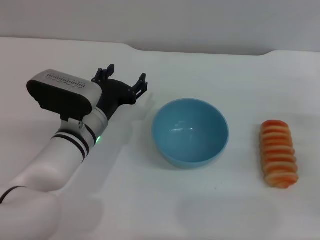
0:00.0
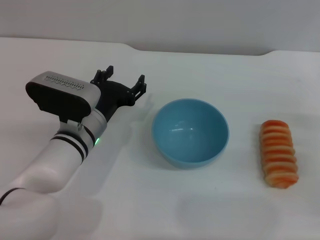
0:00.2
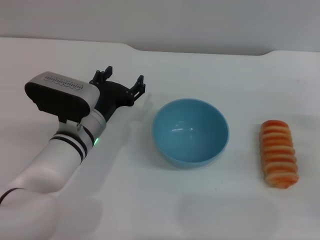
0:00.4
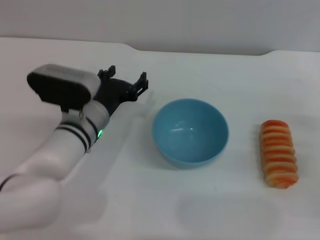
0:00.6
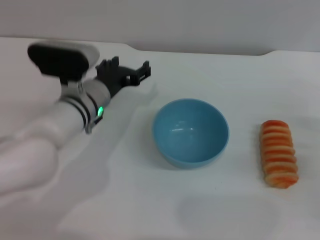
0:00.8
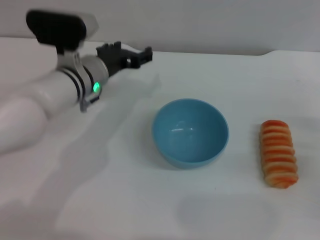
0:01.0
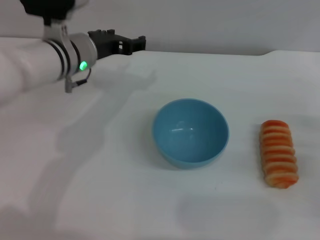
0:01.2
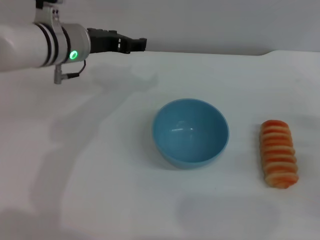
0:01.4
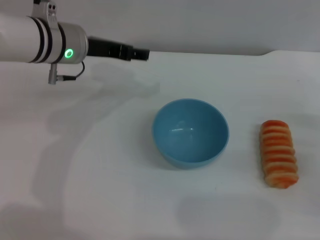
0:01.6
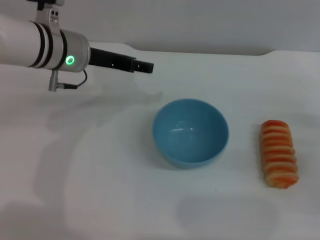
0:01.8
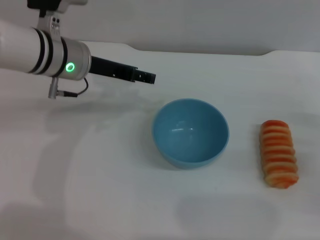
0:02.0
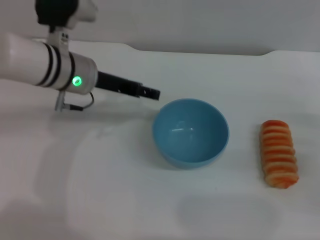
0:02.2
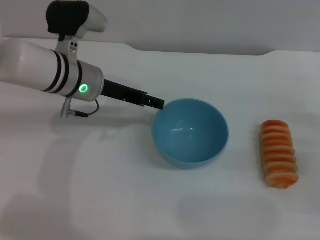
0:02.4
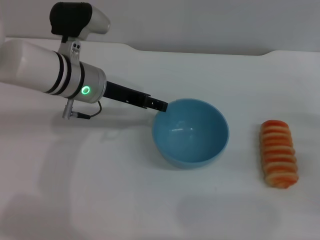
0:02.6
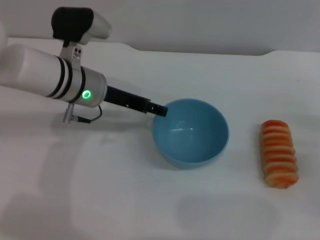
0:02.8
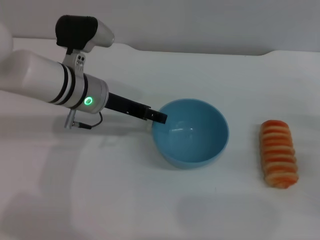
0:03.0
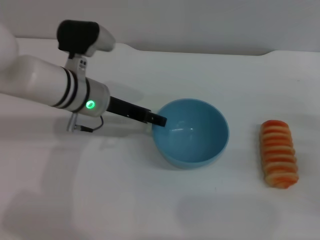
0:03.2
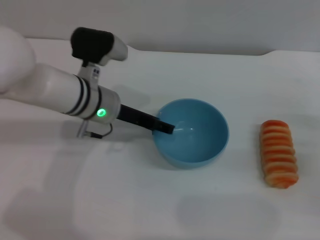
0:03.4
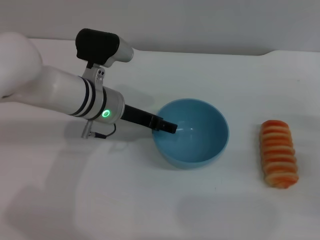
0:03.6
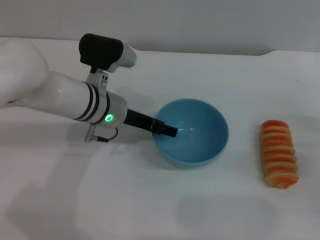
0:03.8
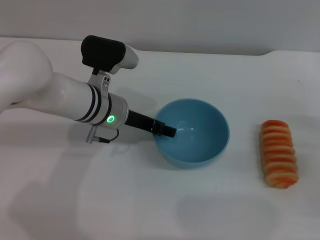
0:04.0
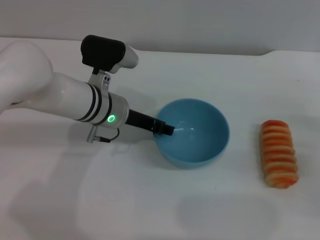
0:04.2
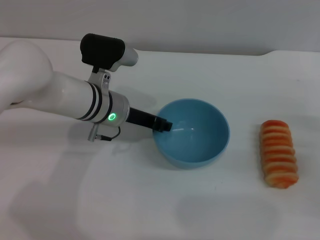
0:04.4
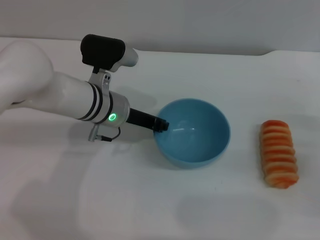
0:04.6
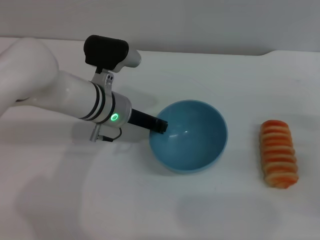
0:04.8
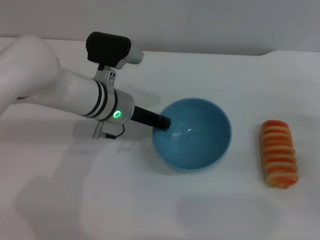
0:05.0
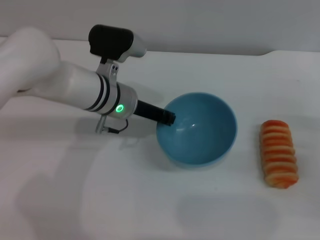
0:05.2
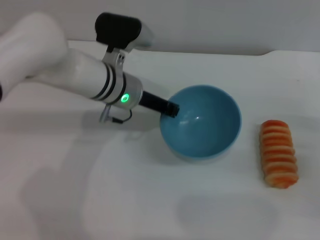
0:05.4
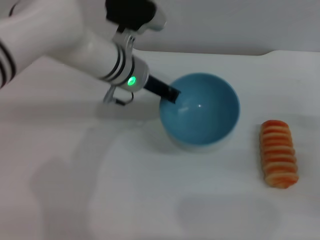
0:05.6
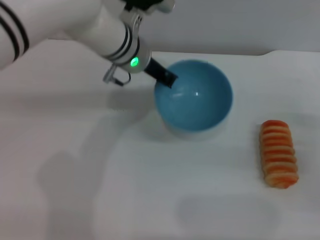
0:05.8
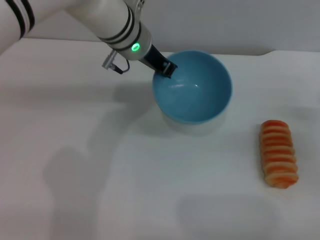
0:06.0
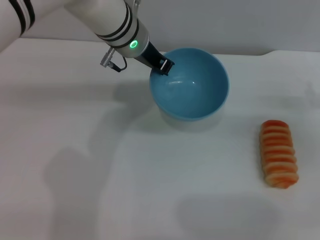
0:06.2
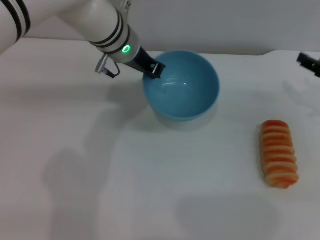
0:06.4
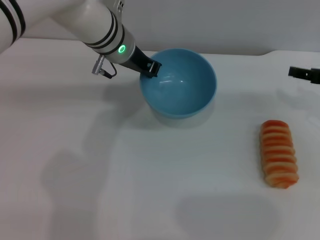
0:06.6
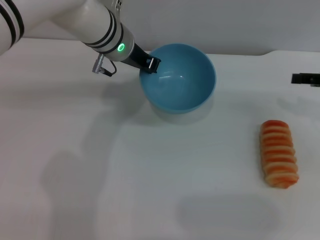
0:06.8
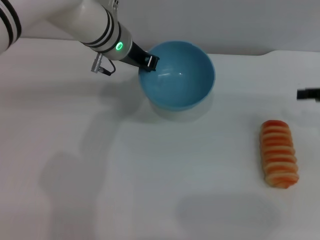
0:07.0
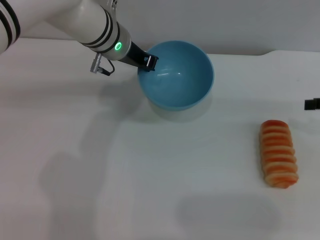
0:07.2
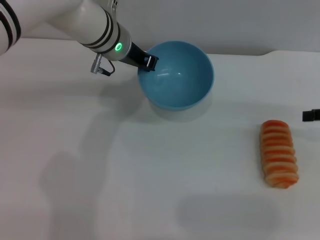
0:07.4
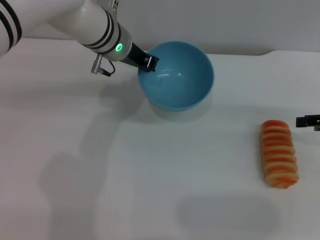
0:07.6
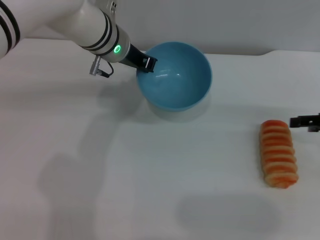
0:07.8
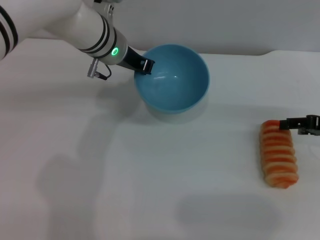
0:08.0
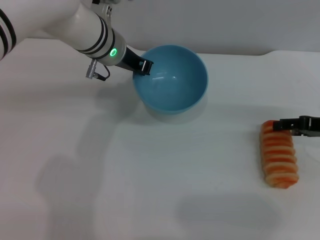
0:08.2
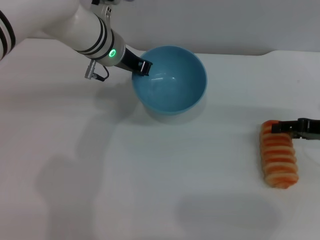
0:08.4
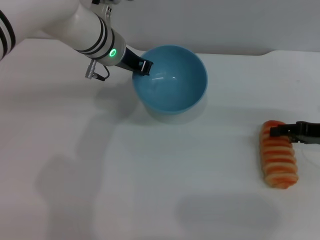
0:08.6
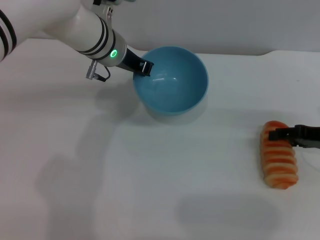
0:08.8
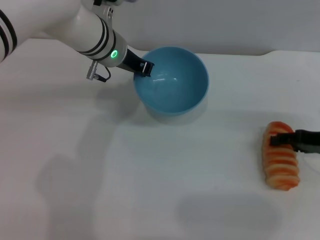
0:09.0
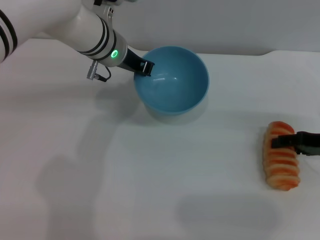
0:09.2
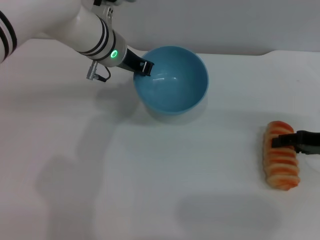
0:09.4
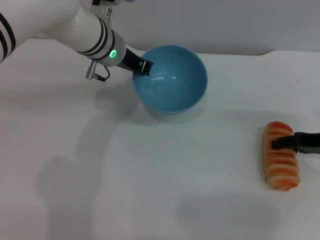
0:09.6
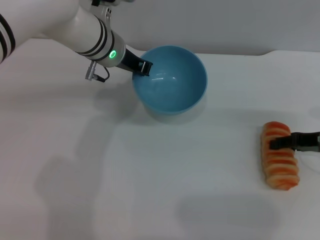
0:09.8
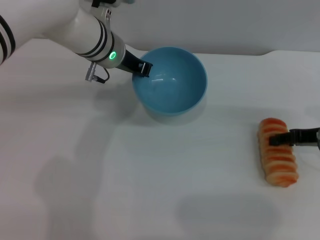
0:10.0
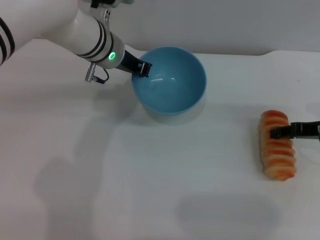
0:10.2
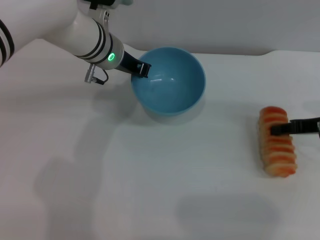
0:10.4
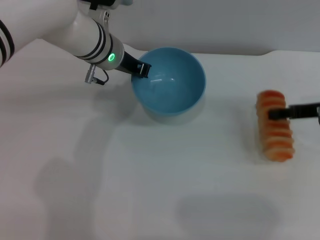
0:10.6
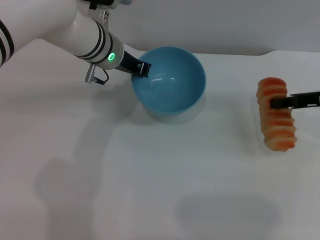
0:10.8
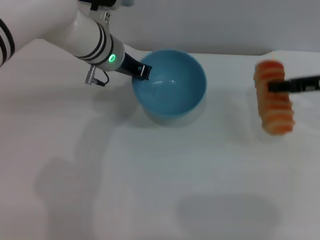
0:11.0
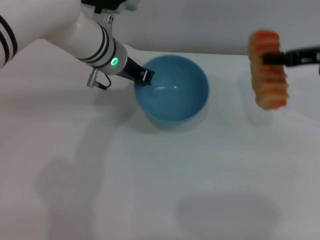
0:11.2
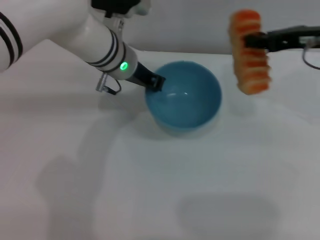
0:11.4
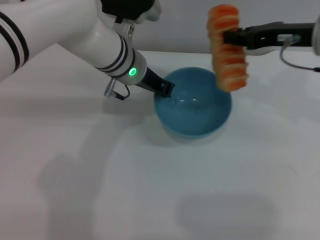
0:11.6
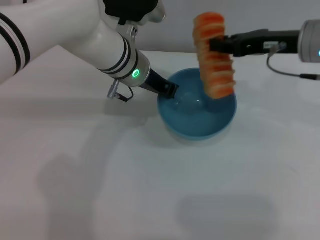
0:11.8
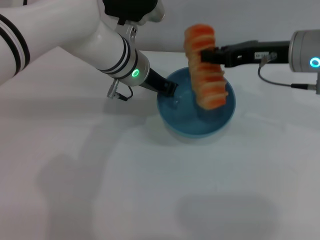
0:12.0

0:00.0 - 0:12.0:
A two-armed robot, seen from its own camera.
Task of the whole recording: put the bread into the blue bowl and pour it out repeatedly.
Step, 0:00.0 - 0:06.2: Pick up the bowl with the left gripper.
Step, 0:06.4 - 0:10.8: Pick up the bread with the right gripper.
0:00.0 - 0:01.6: The left gripper moves upward and forward, roughly 15 cm.
0:01.6 - 0:03.0: The left gripper moves downward, some 5 cm.
0:03.0 - 0:04.4: The left gripper closes up.
0:04.4 - 0:06.0: The left gripper goes about 10 cm upward and forward, and closes up.
0:06.0 - 0:07.6: The right gripper goes some 10 cm upward.
0:07.6 - 0:09.0: The right gripper is displaced downward by roughly 5 cm.
0:09.0 - 0:10.4: The grippers stay close to where they were, moving slightly.
0:10.4 - 0:12.0: The right gripper goes roughly 15 cm to the left and upward, and closes up.

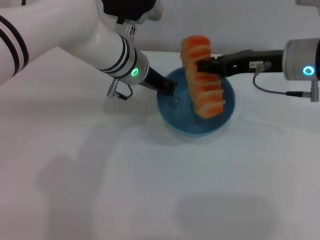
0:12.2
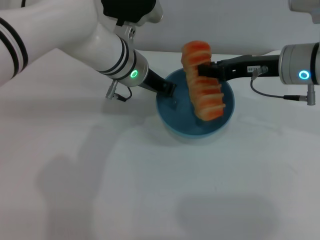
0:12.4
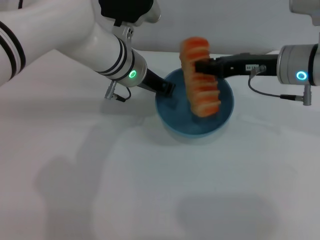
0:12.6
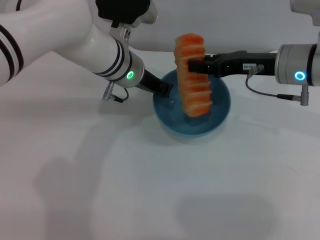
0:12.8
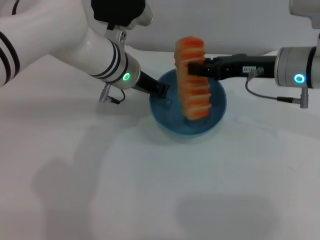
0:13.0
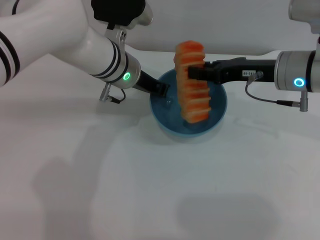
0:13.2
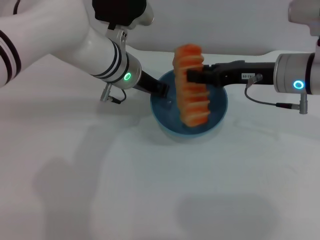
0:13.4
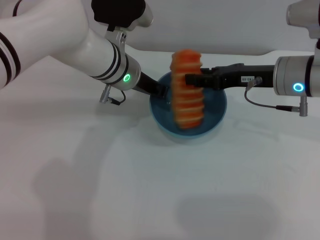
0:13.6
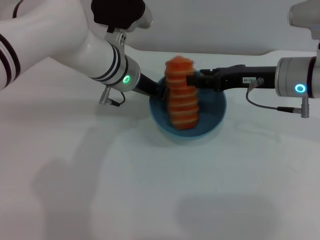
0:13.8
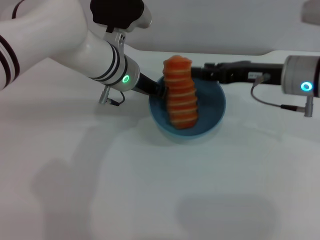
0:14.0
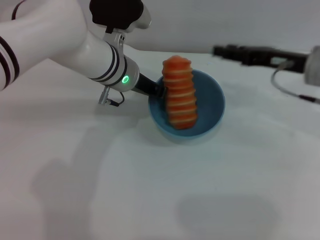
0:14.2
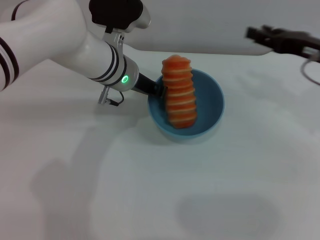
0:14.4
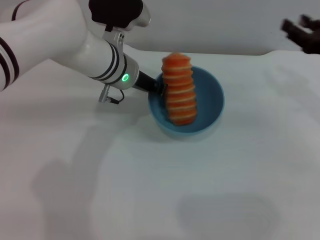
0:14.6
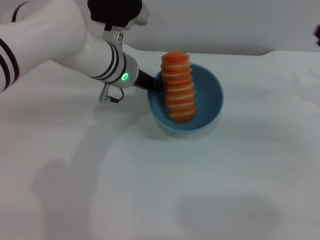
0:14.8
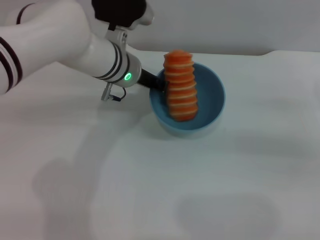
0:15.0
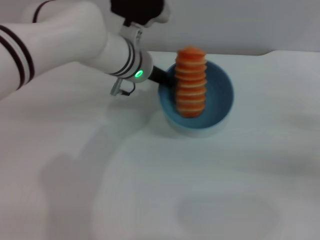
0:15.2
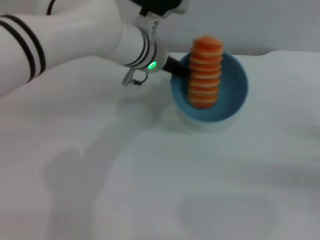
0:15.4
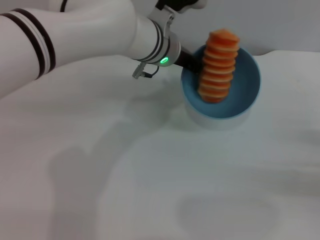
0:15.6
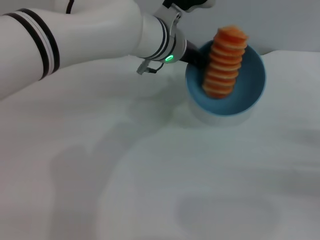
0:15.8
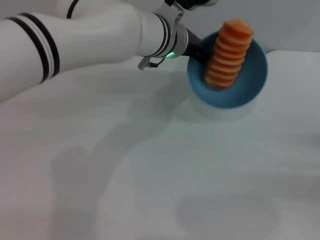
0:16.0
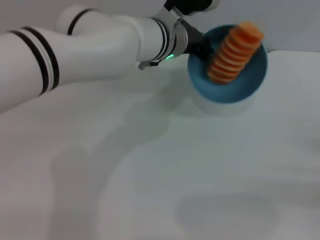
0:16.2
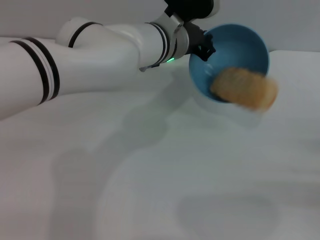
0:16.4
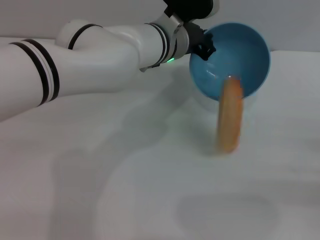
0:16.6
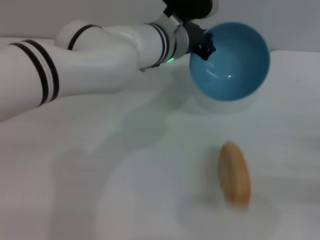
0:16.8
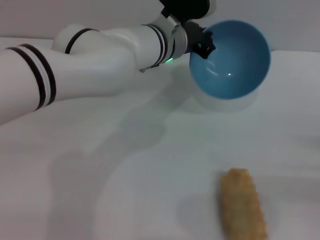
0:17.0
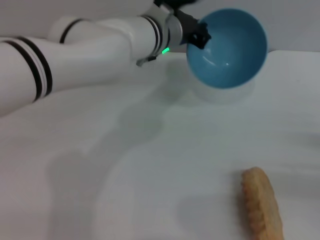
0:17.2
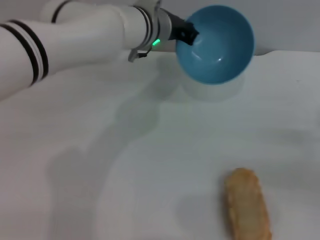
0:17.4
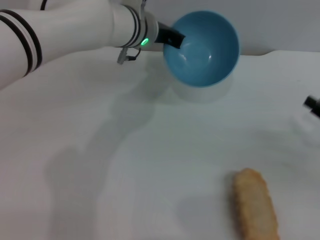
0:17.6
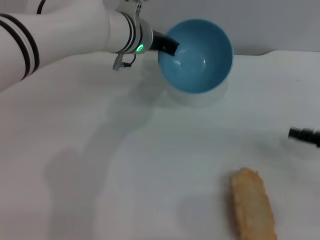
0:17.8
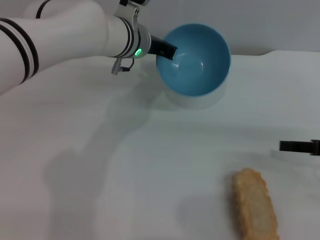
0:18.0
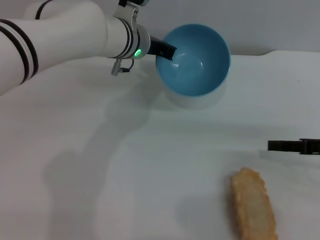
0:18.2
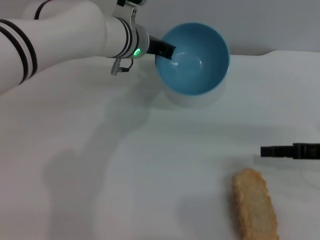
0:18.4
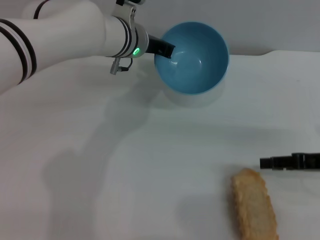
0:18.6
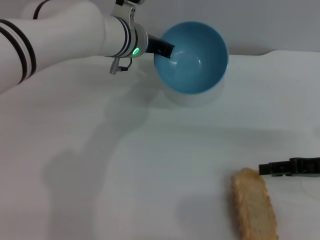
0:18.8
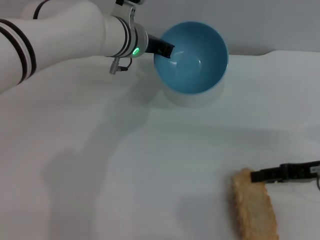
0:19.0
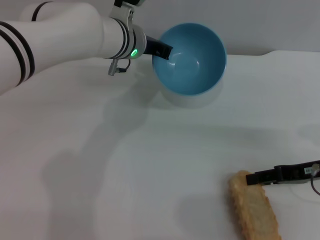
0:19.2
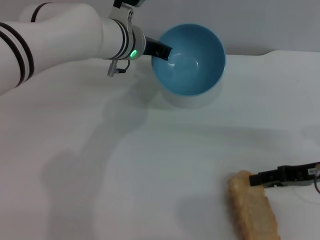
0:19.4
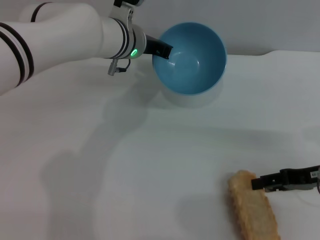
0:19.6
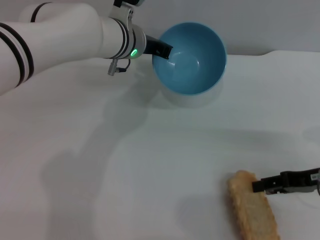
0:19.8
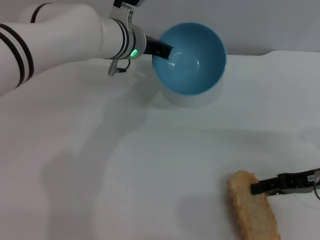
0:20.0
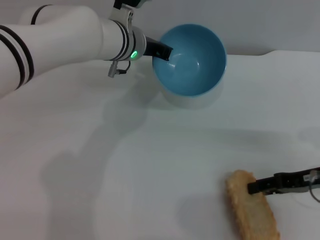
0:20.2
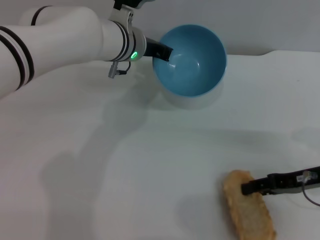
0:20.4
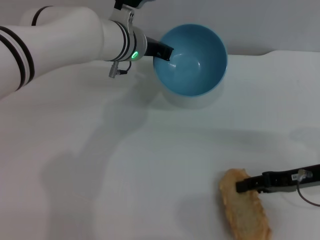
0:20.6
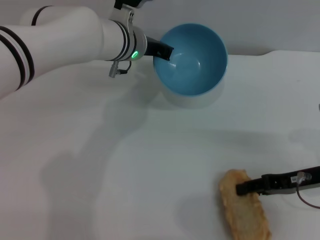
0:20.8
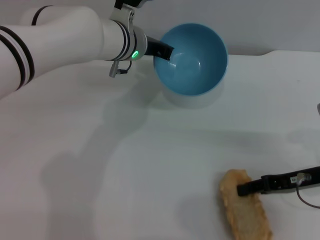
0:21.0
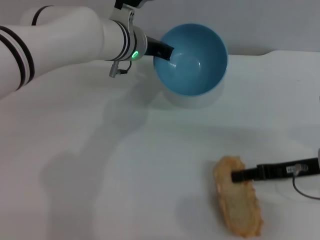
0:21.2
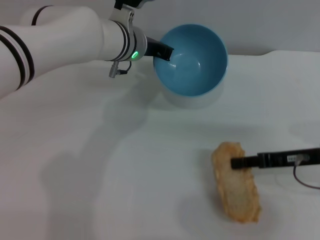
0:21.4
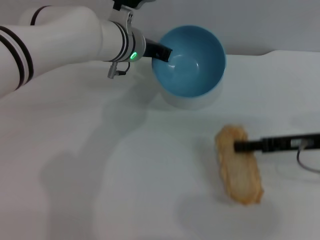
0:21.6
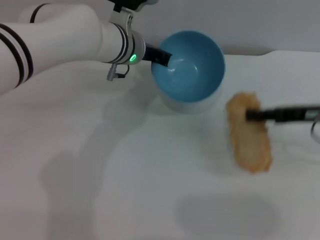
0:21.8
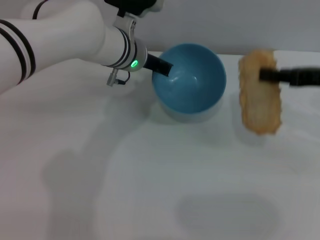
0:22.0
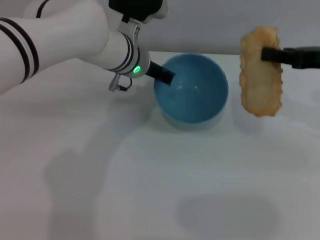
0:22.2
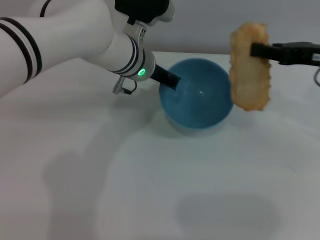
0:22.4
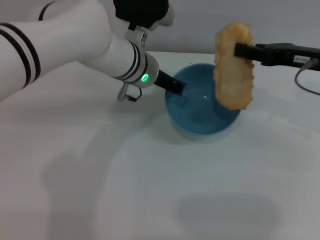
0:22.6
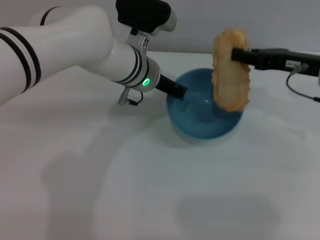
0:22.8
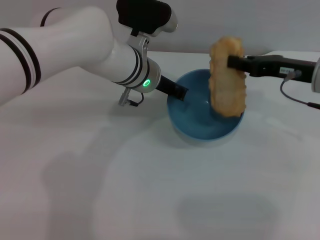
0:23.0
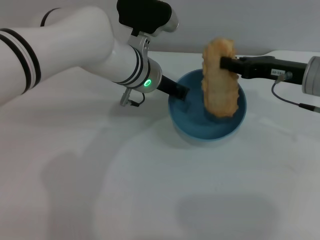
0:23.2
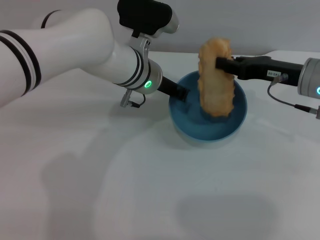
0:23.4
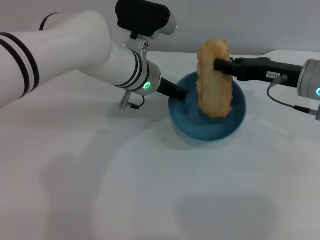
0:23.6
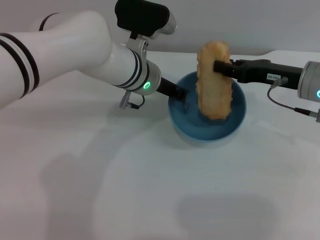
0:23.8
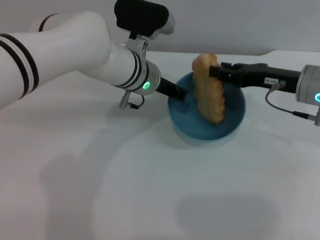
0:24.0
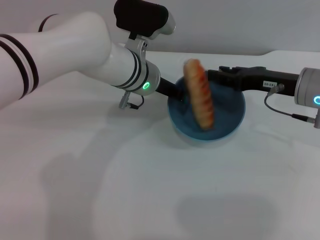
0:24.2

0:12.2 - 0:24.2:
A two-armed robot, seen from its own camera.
Task of the whole recording: put the bread into the blue bowl and pour it out repeatedly.
Step, 0:12.2 - 0:14.0: Place the bread into the bowl.
Step, 0:14.2 - 0:17.8: Pour the bread out of the bowl.
Step, 0:18.0 - 0:21.6: Pick up the bread with the right gripper.
0:12.2 - 0:13.8: The right gripper opens up.
0:13.8 - 0:15.2: The right gripper is displaced to the right, backward and downward by approximately 20 cm.
0:15.2 - 0:16.6: The left gripper moves approximately 5 cm; the right gripper goes some 5 cm backward.
0:16.6 - 0:18.2: The left gripper is displaced to the left by roughly 5 cm; the right gripper heads forward, to the left and upward, covering approximately 10 cm.
0:18.2 - 0:19.8: The grippers move only a little.
0:19.8 - 0:21.2: The grippers stay close to where they were, moving slightly.
0:21.2 - 0:22.6: The right gripper travels upward and forward by about 10 cm, and closes its fingers.
0:22.6 - 0:24.2: The right gripper shifts by approximately 5 cm, and opens up.
